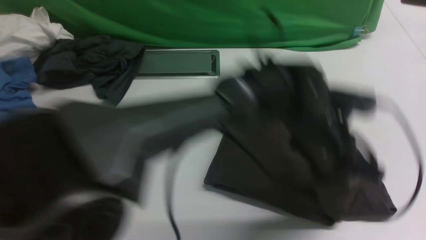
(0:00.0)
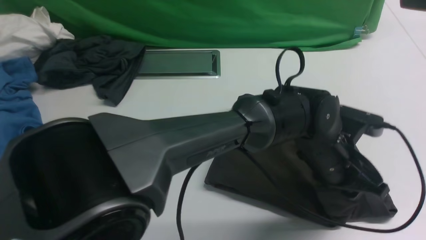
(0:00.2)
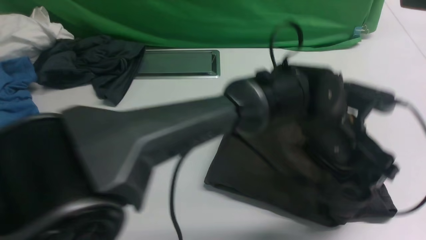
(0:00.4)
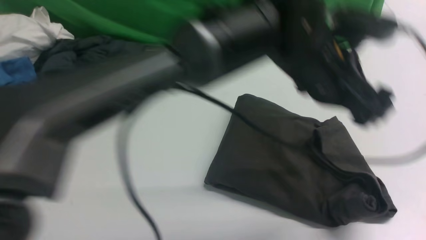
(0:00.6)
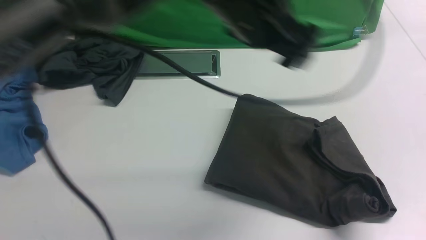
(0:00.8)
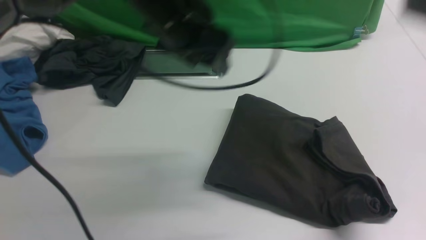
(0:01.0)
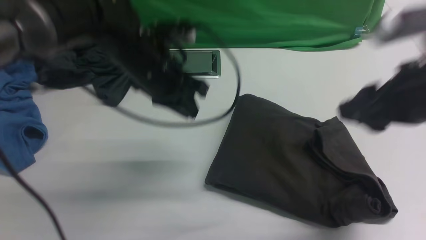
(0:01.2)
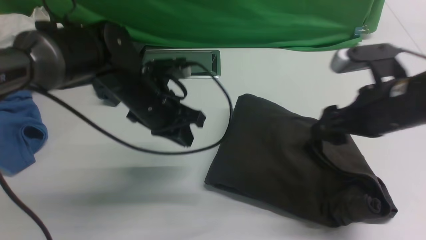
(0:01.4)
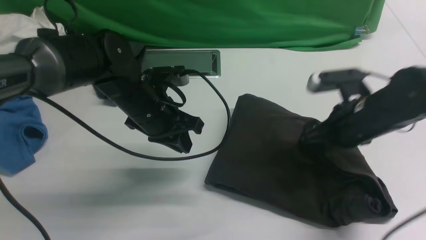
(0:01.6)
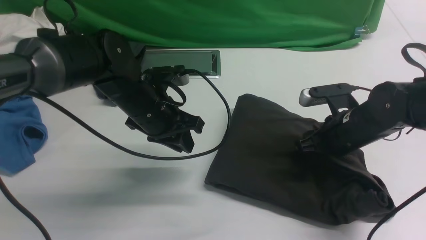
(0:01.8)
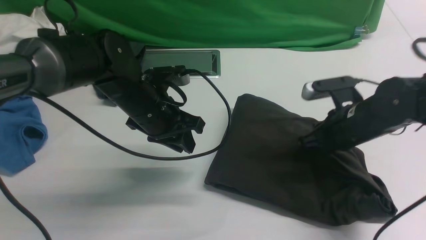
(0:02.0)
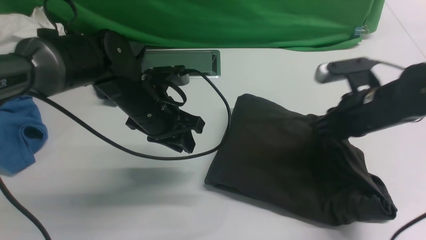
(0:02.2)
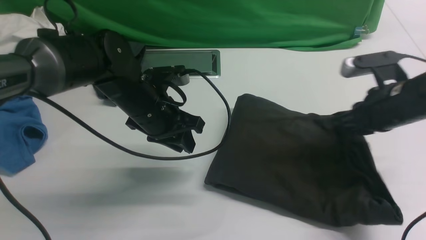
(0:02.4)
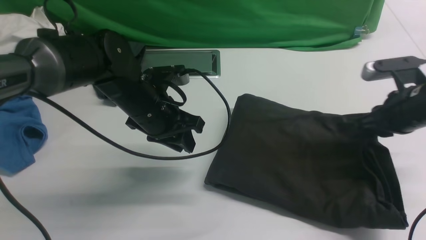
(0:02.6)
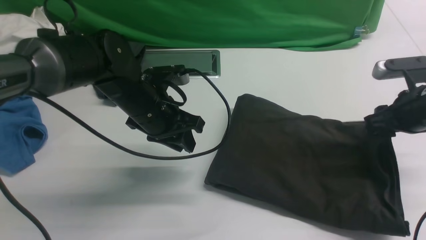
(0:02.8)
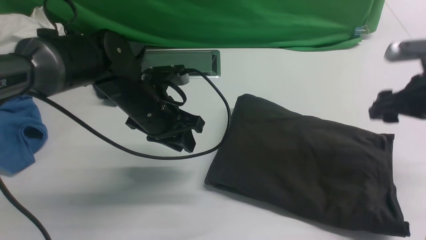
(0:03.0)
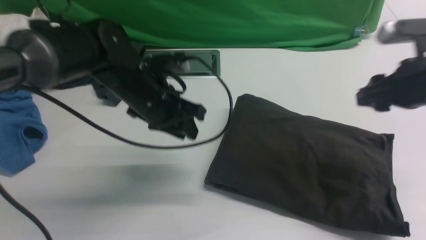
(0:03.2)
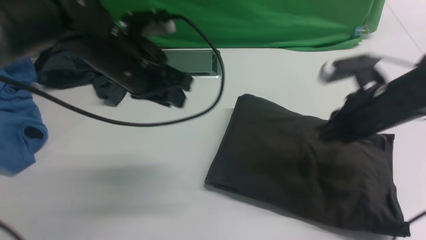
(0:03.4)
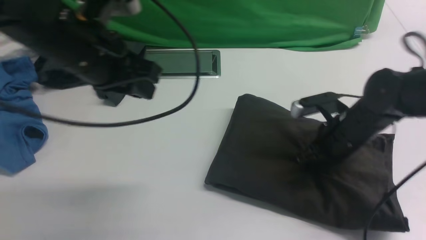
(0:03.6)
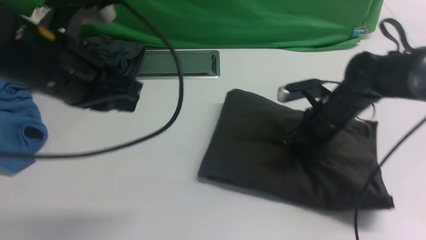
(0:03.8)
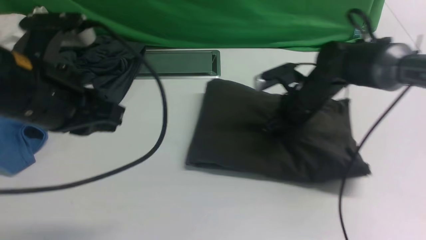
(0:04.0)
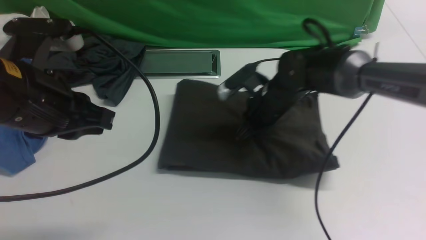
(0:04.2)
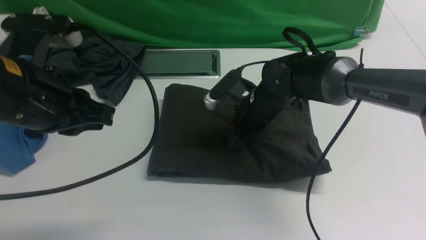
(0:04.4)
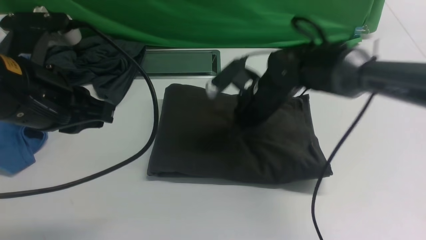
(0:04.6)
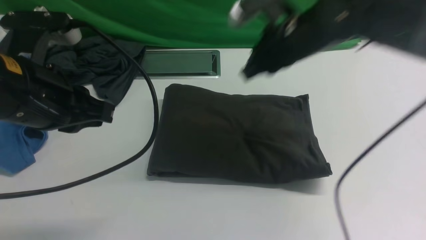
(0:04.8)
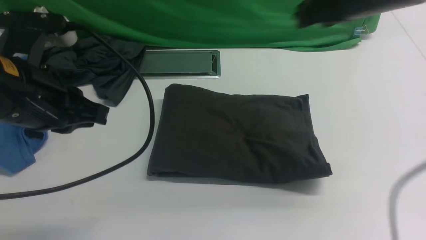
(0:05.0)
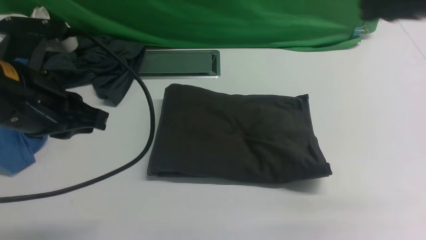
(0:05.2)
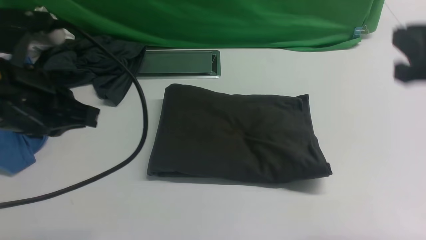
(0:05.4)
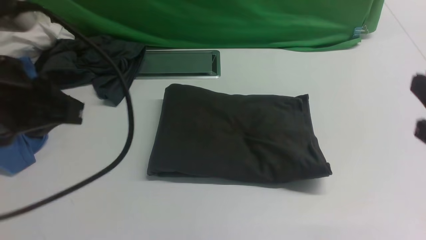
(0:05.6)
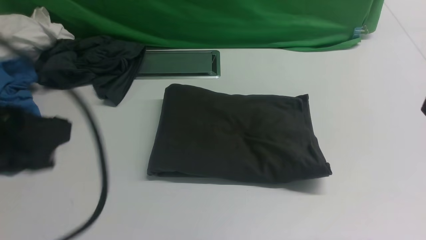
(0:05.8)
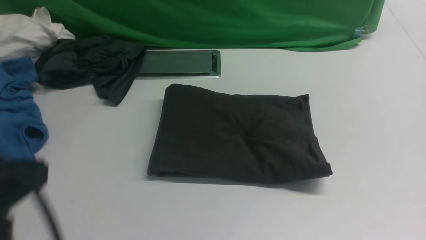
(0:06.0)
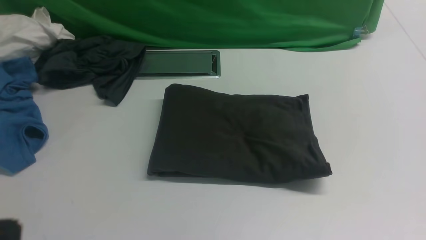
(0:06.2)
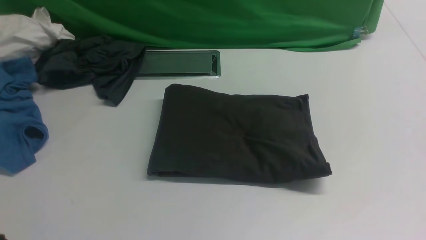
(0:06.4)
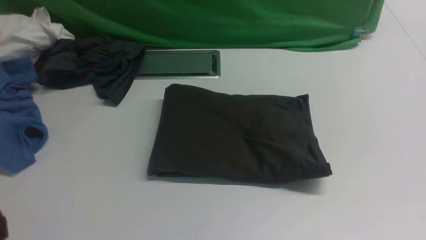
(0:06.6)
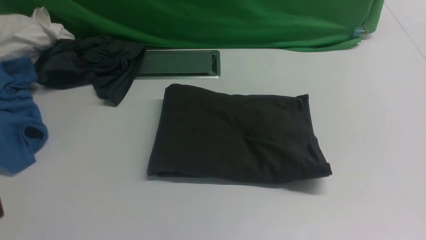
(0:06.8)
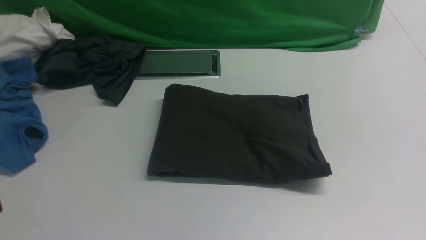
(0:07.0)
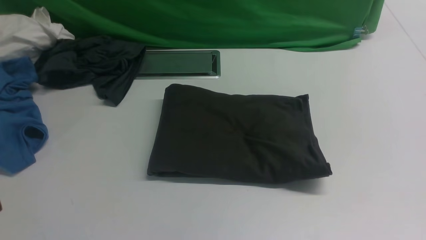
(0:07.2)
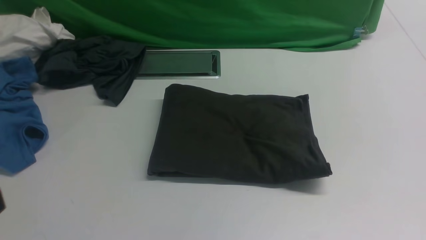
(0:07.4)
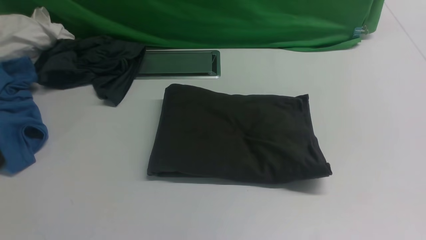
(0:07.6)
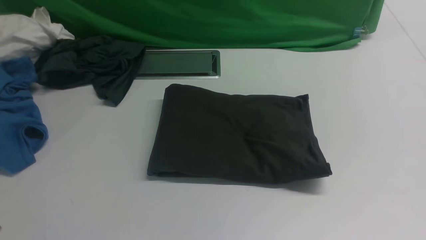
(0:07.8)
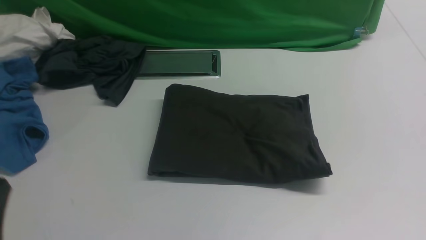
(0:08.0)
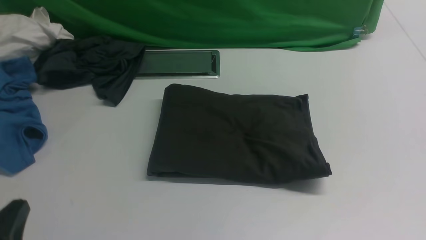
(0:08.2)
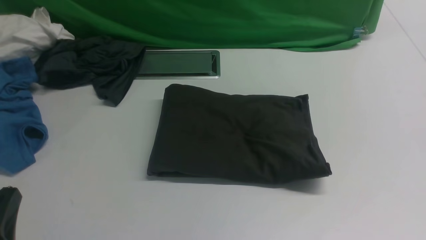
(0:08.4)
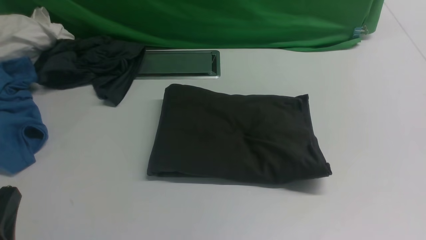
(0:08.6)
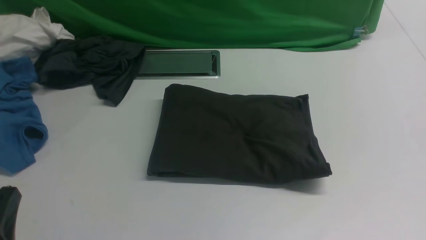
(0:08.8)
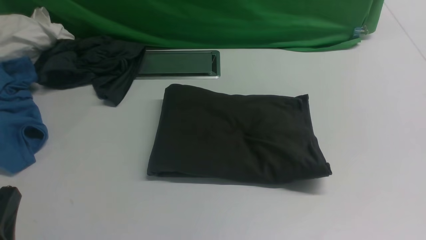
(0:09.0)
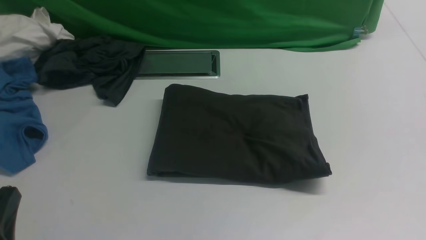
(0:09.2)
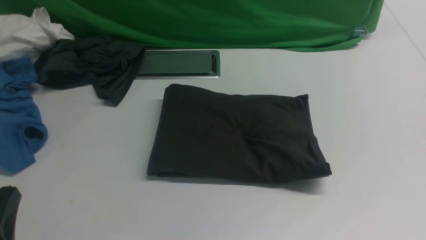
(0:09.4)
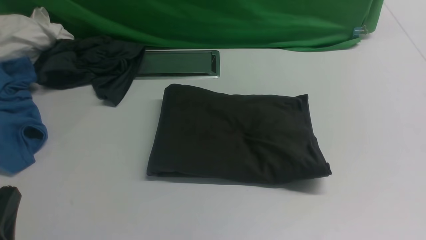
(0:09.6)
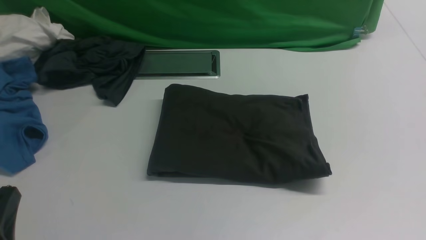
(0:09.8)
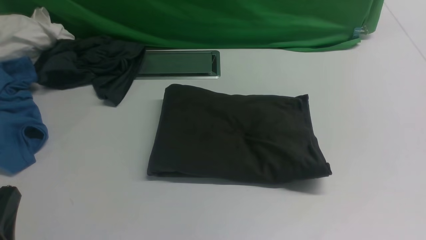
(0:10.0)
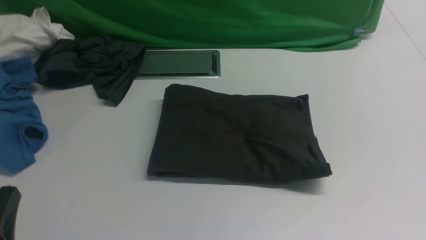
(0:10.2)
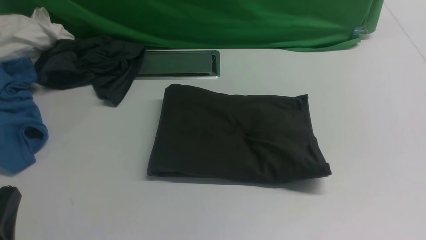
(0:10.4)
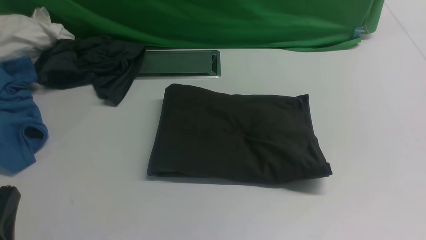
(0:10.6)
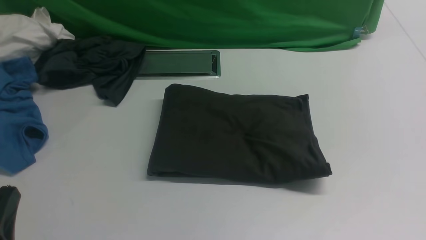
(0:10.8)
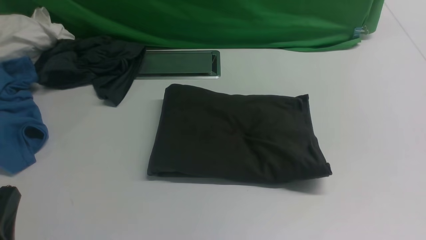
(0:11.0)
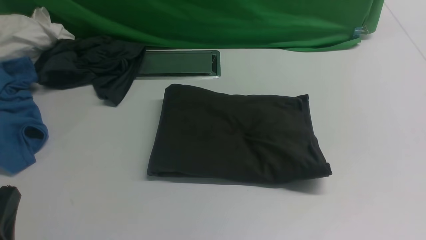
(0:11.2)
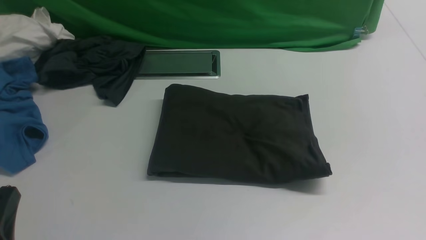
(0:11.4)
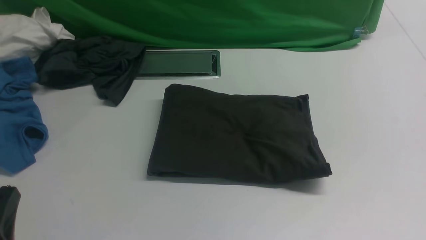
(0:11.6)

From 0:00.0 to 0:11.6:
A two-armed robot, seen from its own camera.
From 0:00.0 to 0:01.4: The right gripper is displaced downward and forward by approximately 25 cm, and opens. The left gripper shifts approximately 25 cm to the left, and opens and closes again.
From 0:01.4 to 0:02.8: The right gripper heads to the right, covering roughly 10 cm, and closes, then opens again.
From 0:02.8 to 0:04.4: The right gripper moves to the left, roughly 25 cm, and closes up. The left gripper goes approximately 20 cm upward, backward and to the left.
From 0:04.4 to 0:05.8: The right gripper moves backward, to the right and upward, approximately 35 cm. Meanwhile the left gripper heads backward, covering some 10 cm.
From 0:05.8 to 0:07.2: The left gripper moves backward, approximately 10 cm.
From 0:07.2 to 0:08.8: The left gripper heads downward, covering some 15 cm.

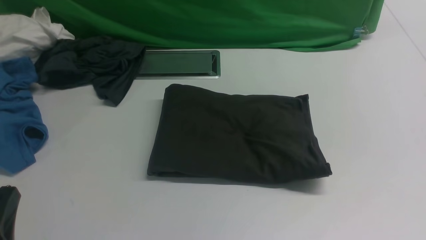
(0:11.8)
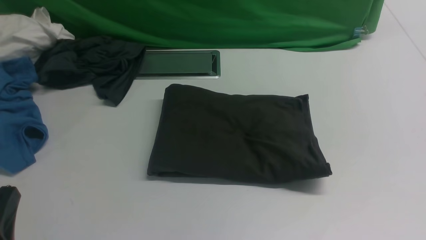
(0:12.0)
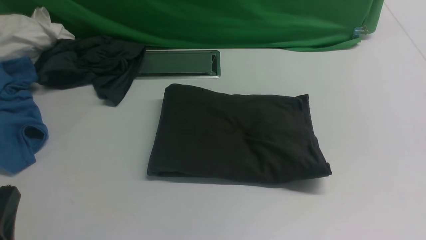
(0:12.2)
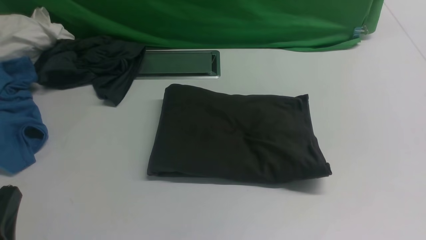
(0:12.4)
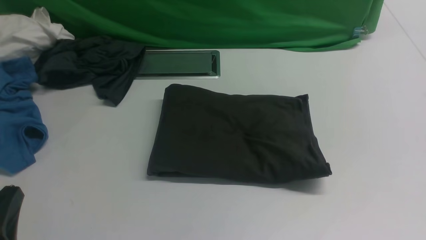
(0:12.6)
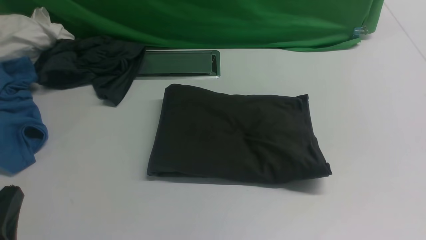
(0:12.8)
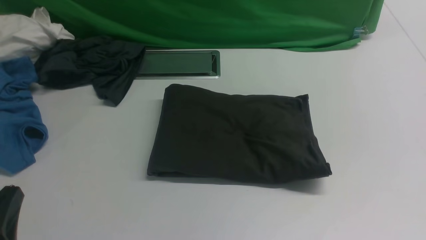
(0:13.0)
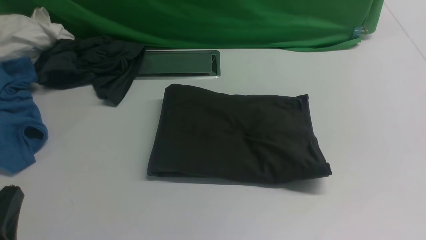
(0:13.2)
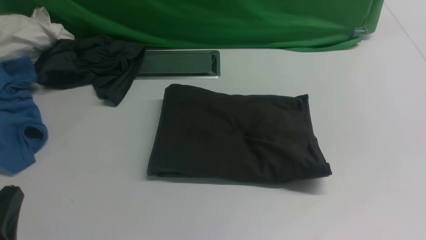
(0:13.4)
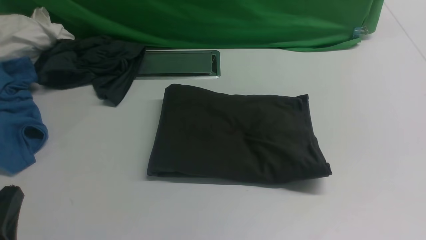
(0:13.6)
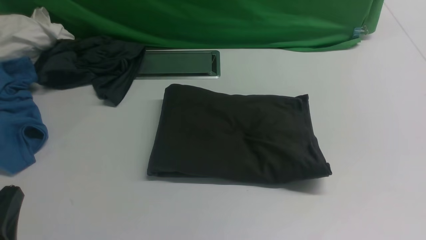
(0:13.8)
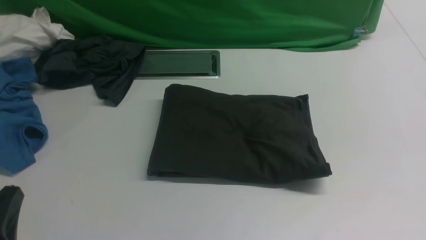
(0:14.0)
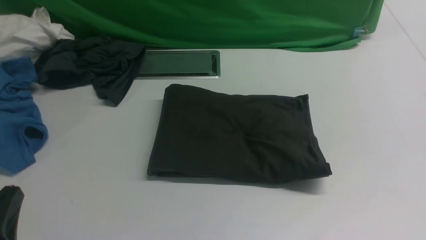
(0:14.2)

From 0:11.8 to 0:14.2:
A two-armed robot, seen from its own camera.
From 0:11.8 to 0:14.2: Both grippers stay about where they are.
